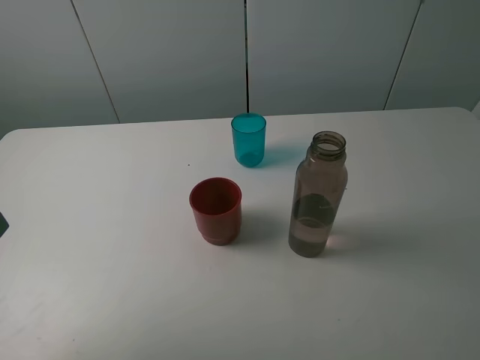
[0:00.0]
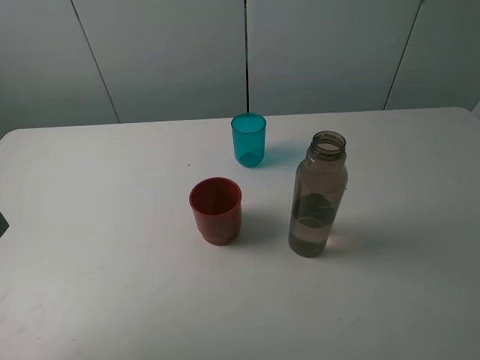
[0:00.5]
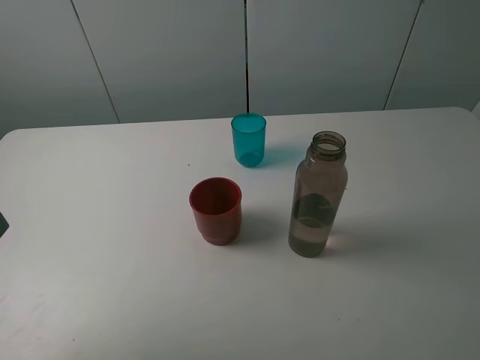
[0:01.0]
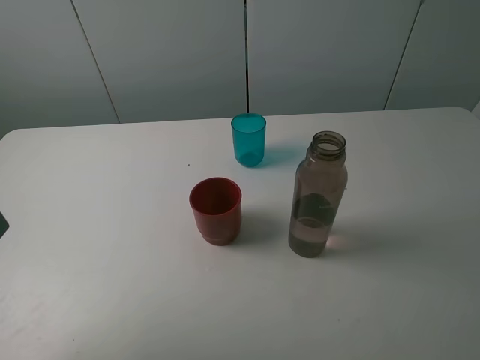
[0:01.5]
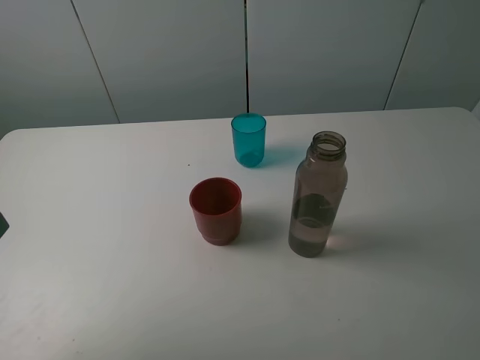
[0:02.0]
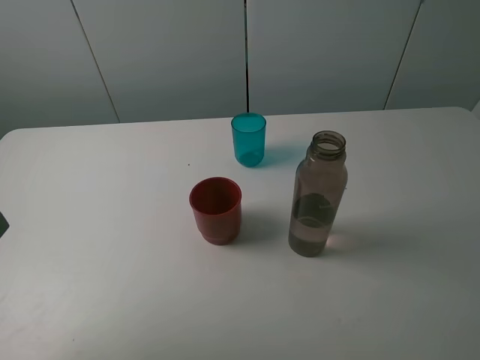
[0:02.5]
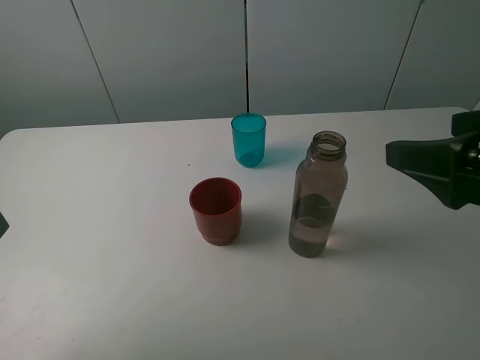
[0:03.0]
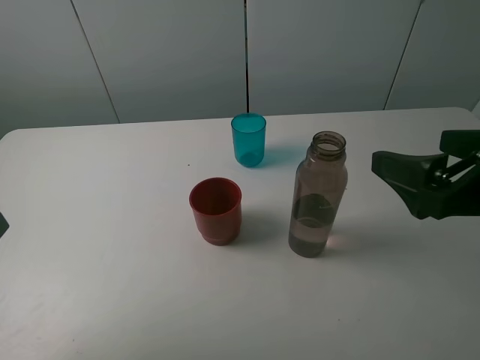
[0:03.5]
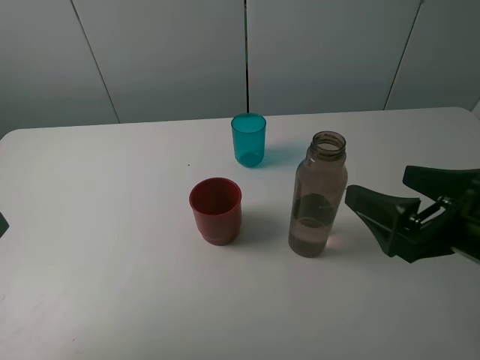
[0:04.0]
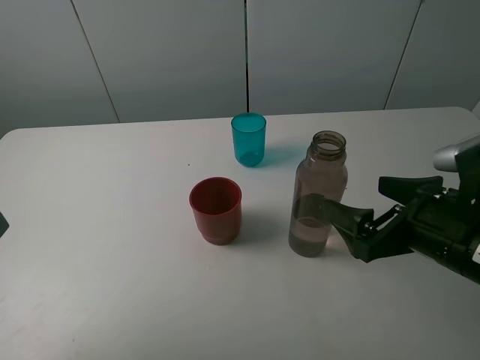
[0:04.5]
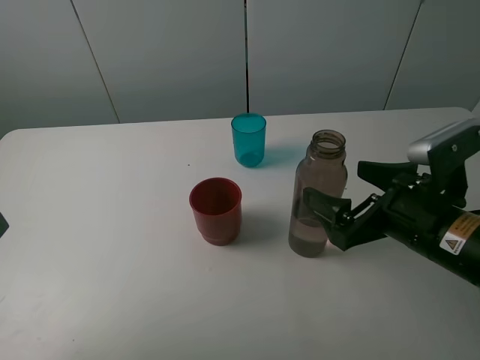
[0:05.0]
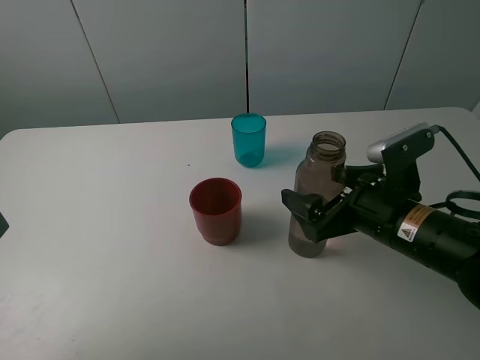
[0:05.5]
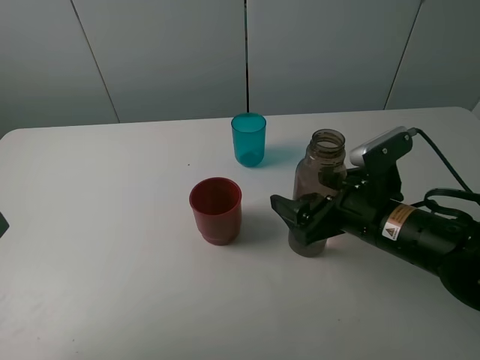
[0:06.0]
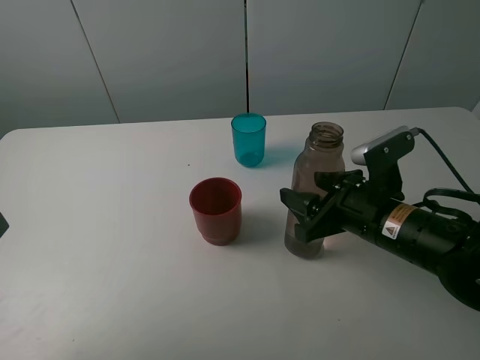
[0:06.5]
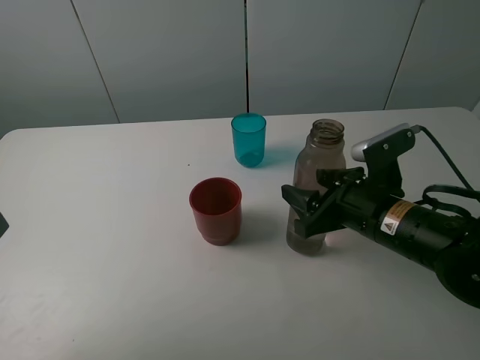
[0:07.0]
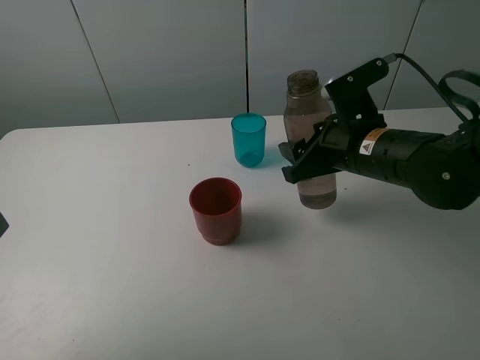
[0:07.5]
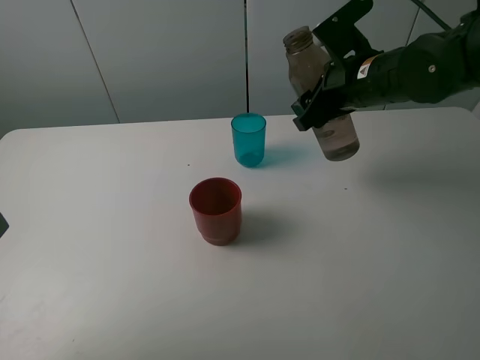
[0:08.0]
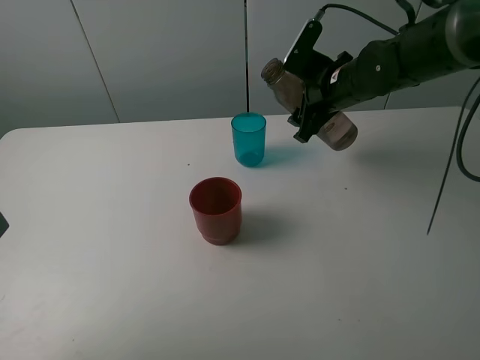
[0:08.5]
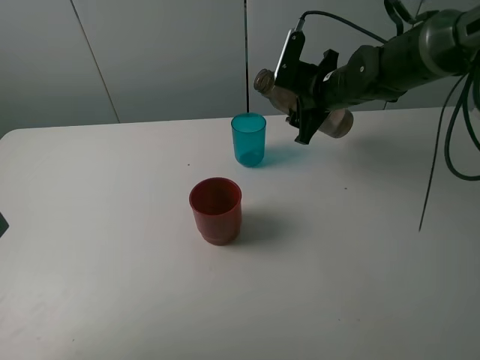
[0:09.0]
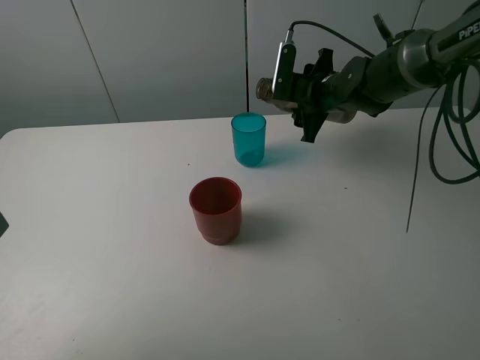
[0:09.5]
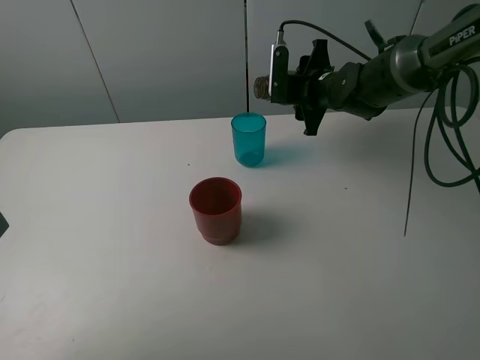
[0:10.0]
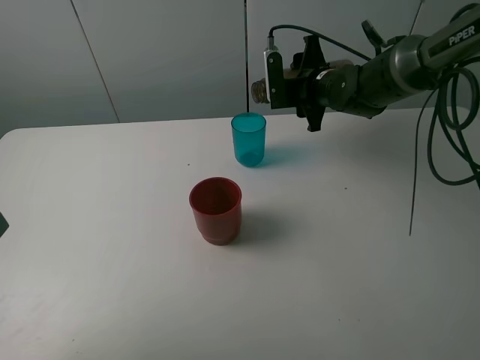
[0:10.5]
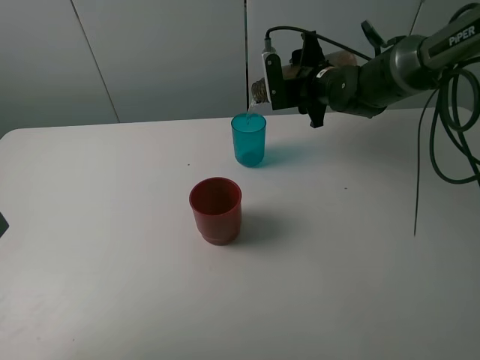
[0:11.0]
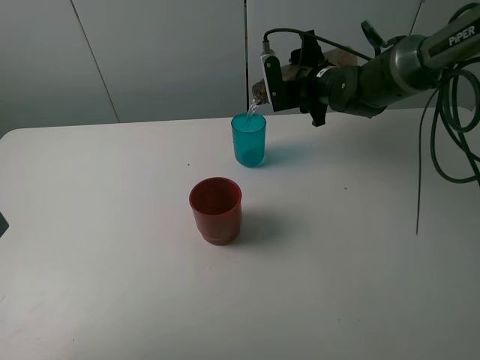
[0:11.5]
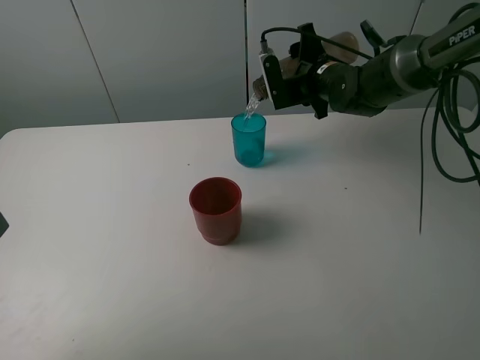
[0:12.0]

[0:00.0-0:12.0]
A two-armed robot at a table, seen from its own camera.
Task of the whole recording: pick up the bottle and pour water into the cup, then pick up the cup containing water and pour it into another cup.
Step, 0:00.0 to 0:06.0: Grasp the brown bottle with the right gripper.
0:00.0 to 0:02.0: The two grippers keep their place.
0:02.0 to 0:04.0: The right gripper heads forward, downward and to the left, covering roughly 15 cm.
0:04.0 to 0:06.0: The right gripper shifts approximately 10 cm forward, downward and to the left.
0:06.0 to 0:08.0: The right gripper travels forward and upward by some 20 cm, and closes up.
0:08.0 to 0:10.0: The right gripper travels forward and downward by some 10 cm.

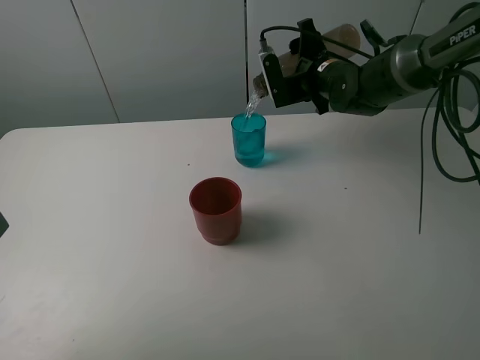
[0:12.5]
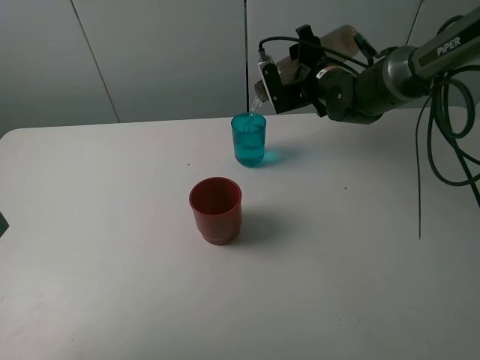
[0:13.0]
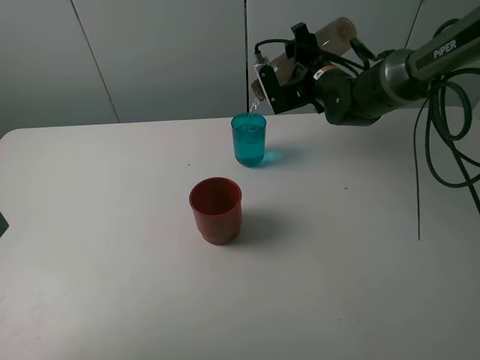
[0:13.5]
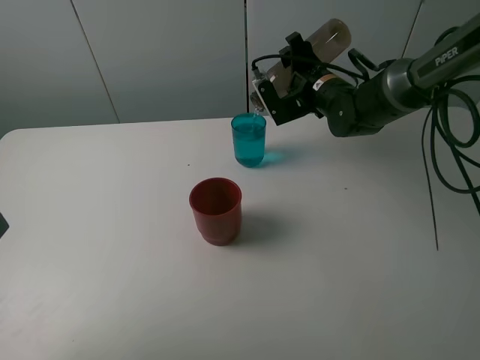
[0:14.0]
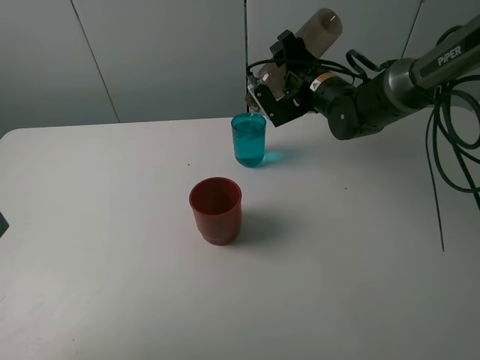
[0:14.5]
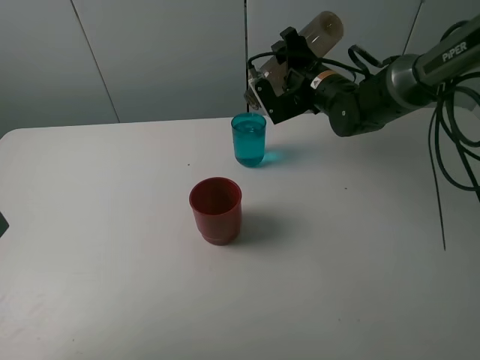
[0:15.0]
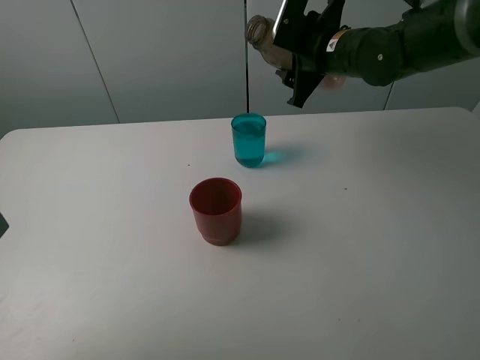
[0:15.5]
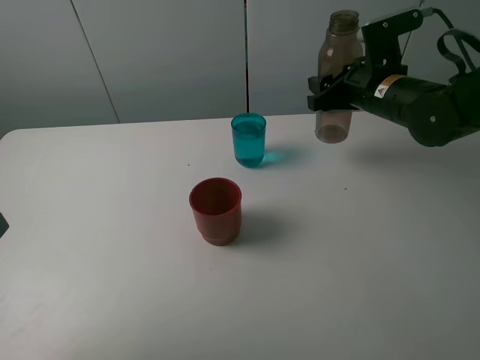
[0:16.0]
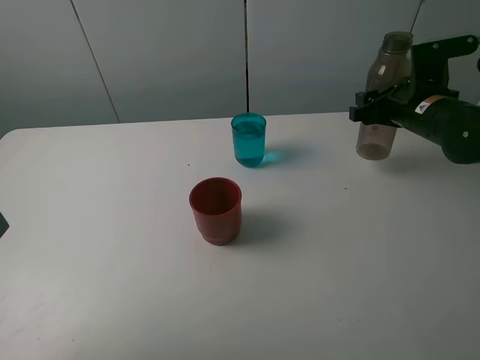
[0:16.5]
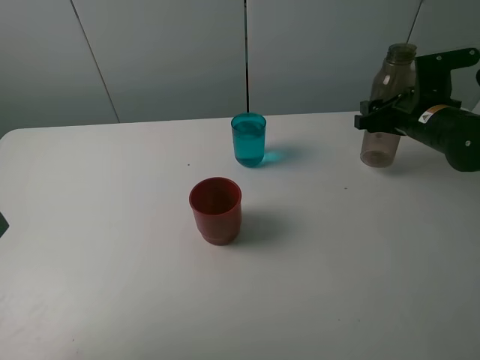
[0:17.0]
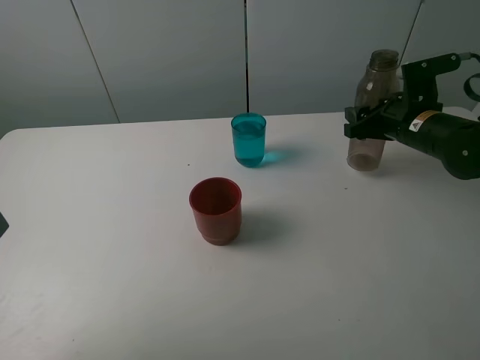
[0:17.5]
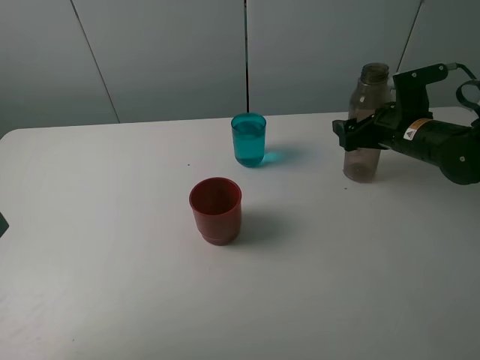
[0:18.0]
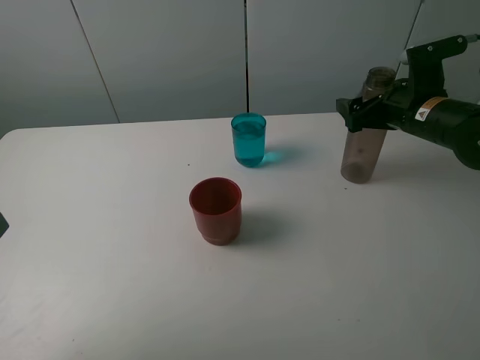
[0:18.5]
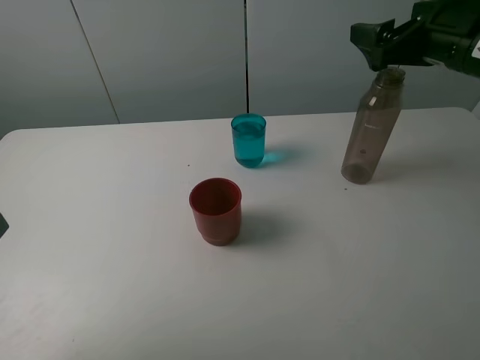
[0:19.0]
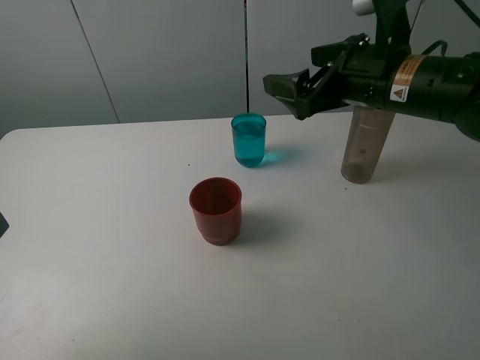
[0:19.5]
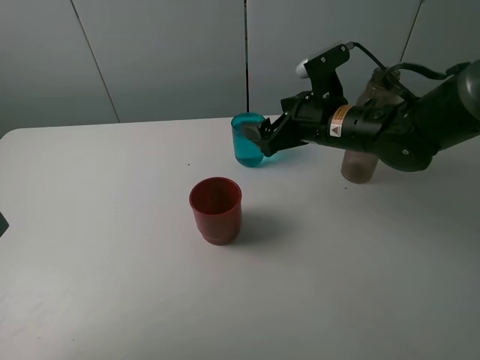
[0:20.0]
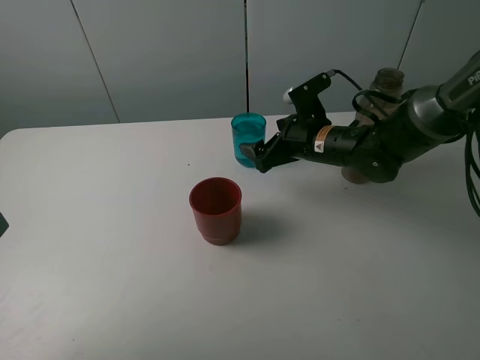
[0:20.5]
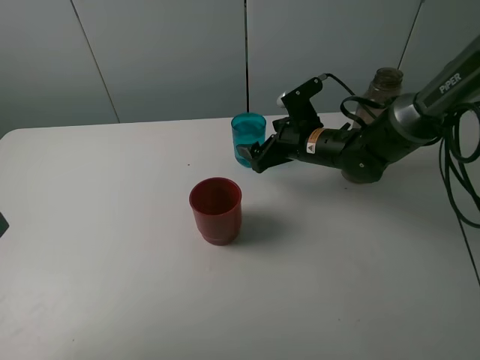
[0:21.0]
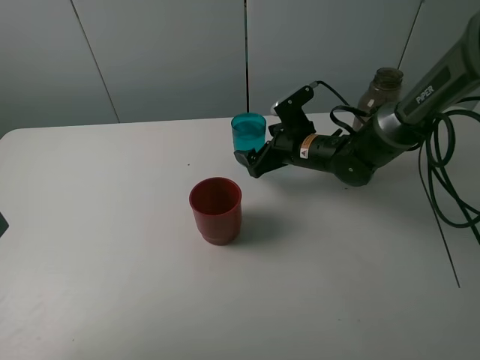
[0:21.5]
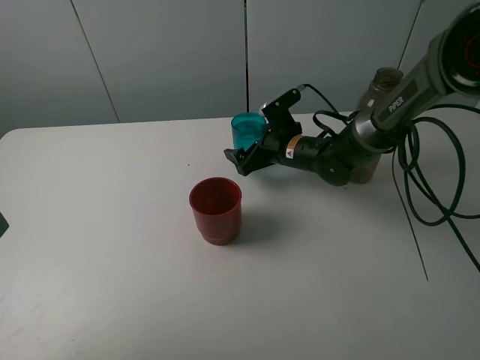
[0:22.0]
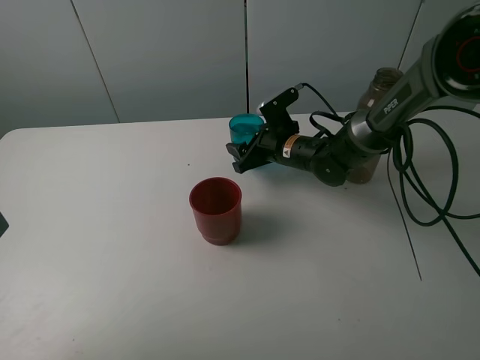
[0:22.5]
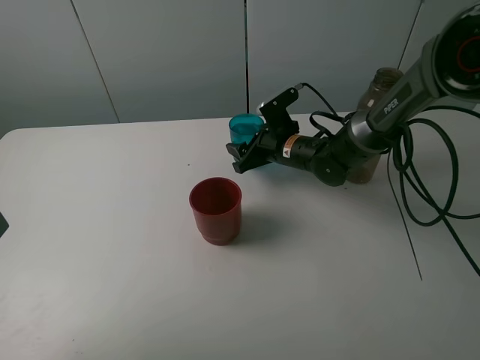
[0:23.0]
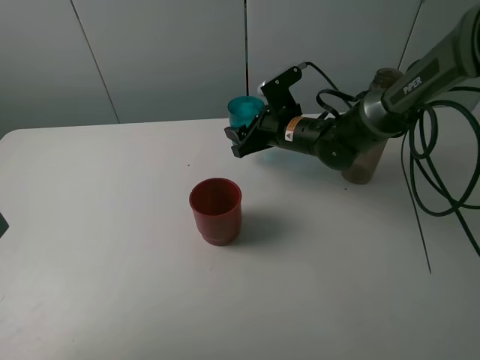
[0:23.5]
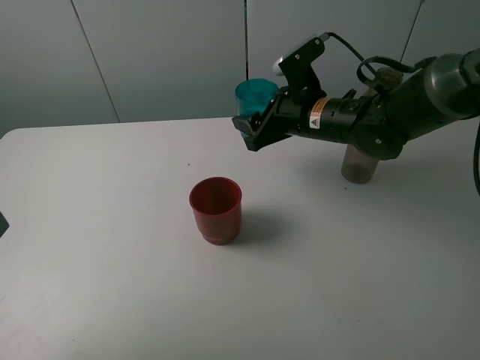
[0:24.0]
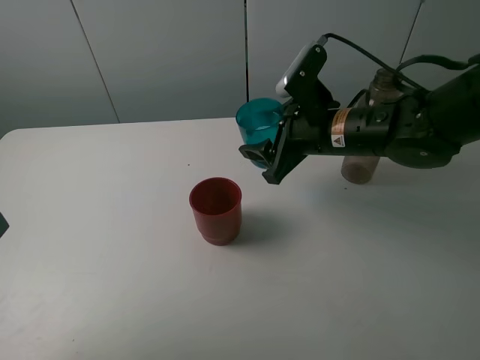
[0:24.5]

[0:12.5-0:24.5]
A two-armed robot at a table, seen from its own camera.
Task of the whole recording: pick up the bottle and pour water into the cup, then pick up the cup containing water and pour it into another cup.
Step, 0:12.5 to 0:15.0: Pour water from brown bottle to blue cup with the right gripper.
Step, 0:15.5 to 0:18.5: Place the brown bottle with the right gripper.
Step, 0:19.0 to 0:22.5: Grasp the blue cup with the right gripper.
0:12.5 to 0:14.5: The grippers make only small movements.
0:14.5 to 0:16.5: The right gripper is displaced to the right and backward by about 15 cm.
0:16.5 to 0:18.5: The right gripper opens up.
0:18.5 to 0:20.5: The right gripper travels to the left and downward by about 15 cm.
0:20.5 to 0:22.5: The right gripper travels downward by some 5 cm, and closes.
0:22.5 to 0:24.5: The right gripper moves upward and backward, some 15 cm.

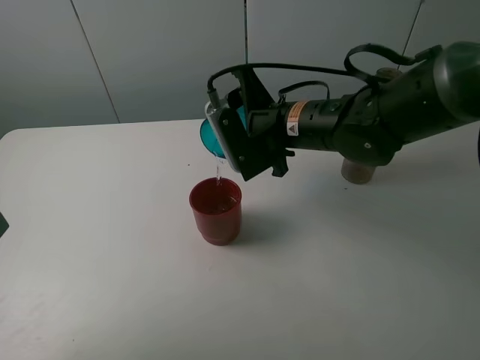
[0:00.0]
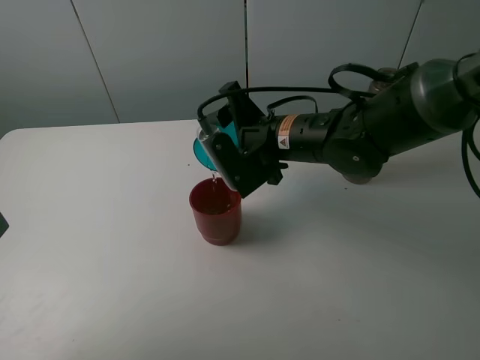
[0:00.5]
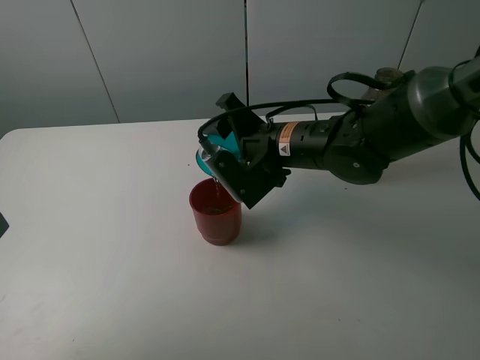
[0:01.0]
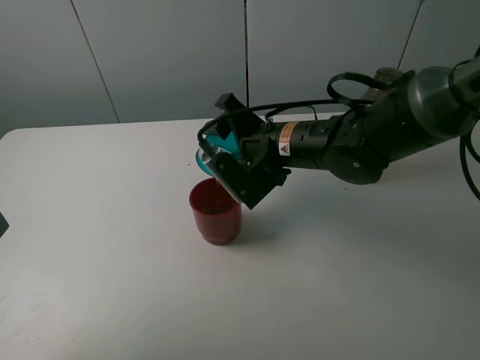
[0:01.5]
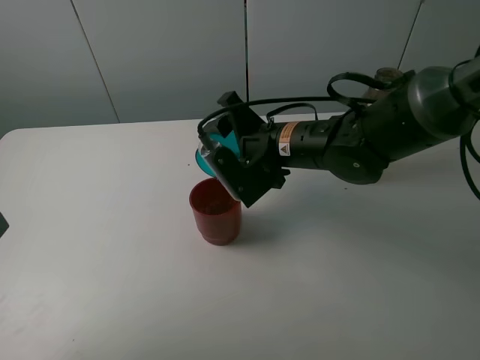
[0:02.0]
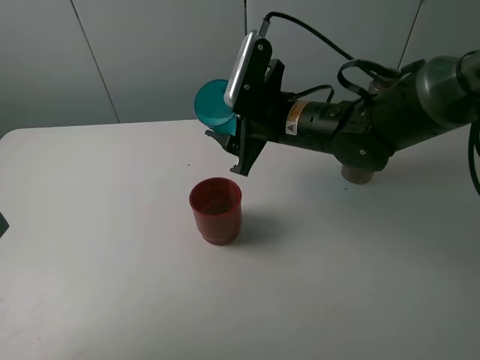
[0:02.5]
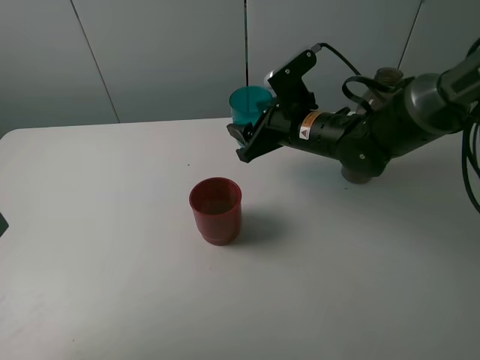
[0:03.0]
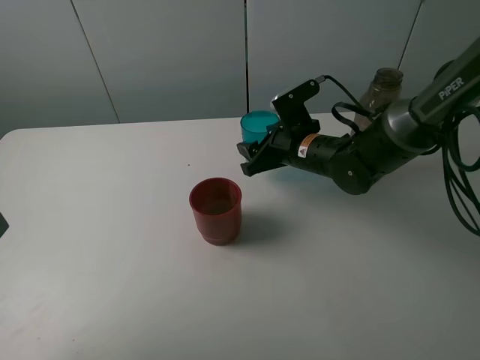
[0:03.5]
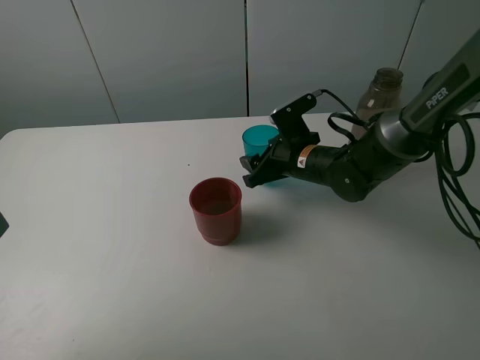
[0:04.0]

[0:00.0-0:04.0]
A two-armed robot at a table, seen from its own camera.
Task of the whole recording: pick up the bottle and pour water into the cup, then pick up the cup containing water and pour it into another cup.
Step, 0:00.0 to 0:02.0: Pour water from blue cup to red cup with the right gripper.
0:00.0 to 0:02.0: The grippers make only small movements.
0:02.0 to 0:04.0: The right gripper moves downward, some 5 cm.
